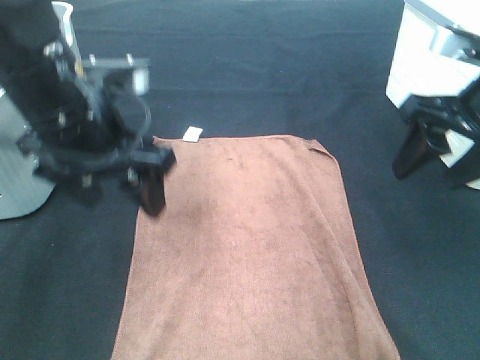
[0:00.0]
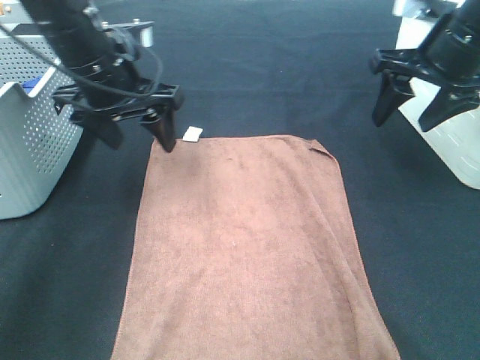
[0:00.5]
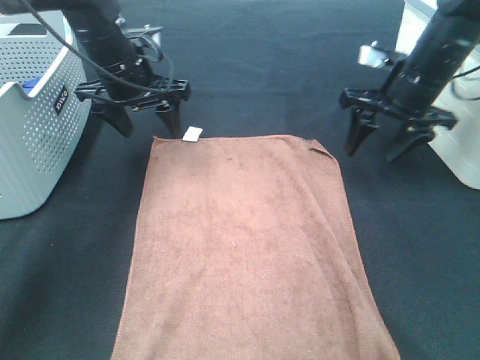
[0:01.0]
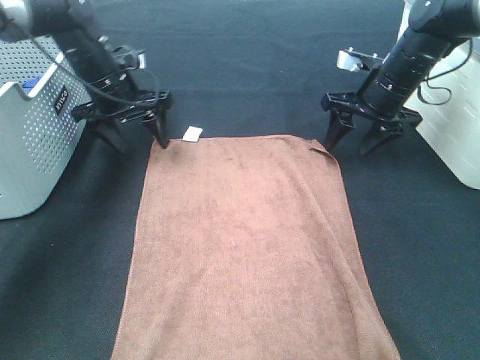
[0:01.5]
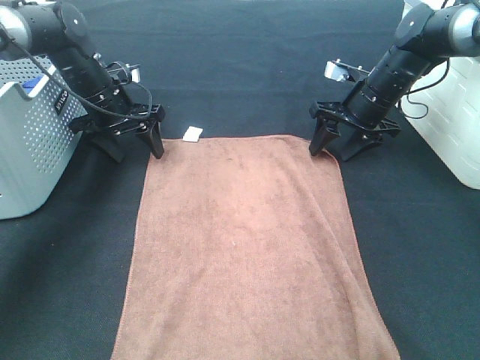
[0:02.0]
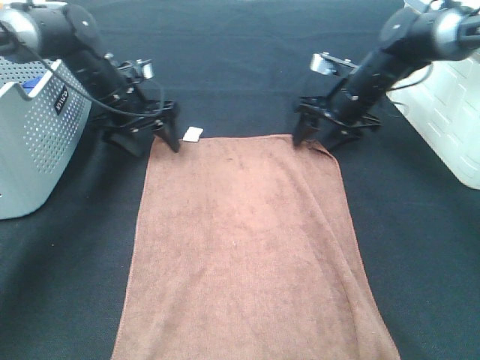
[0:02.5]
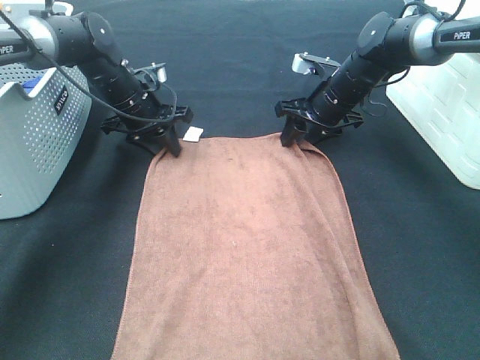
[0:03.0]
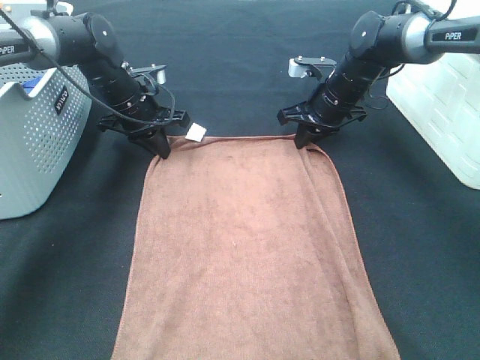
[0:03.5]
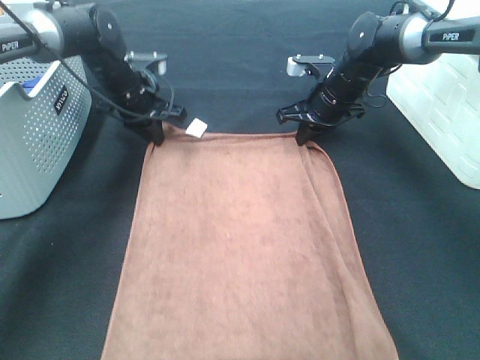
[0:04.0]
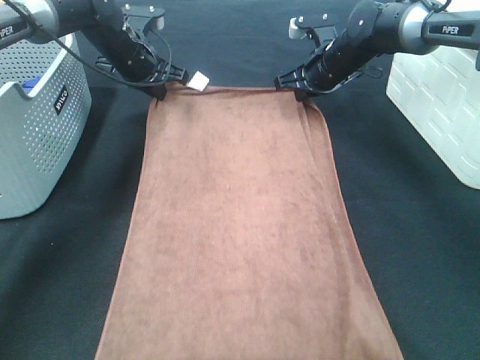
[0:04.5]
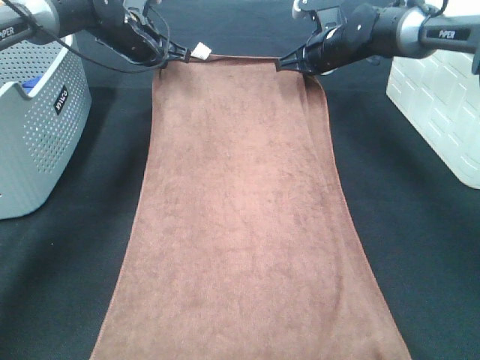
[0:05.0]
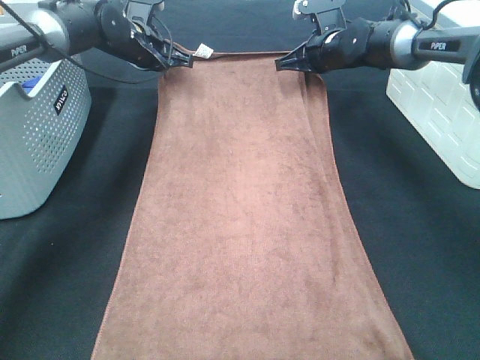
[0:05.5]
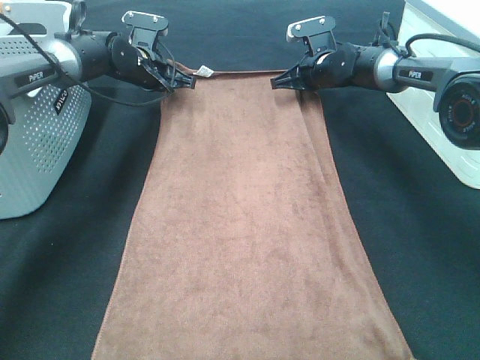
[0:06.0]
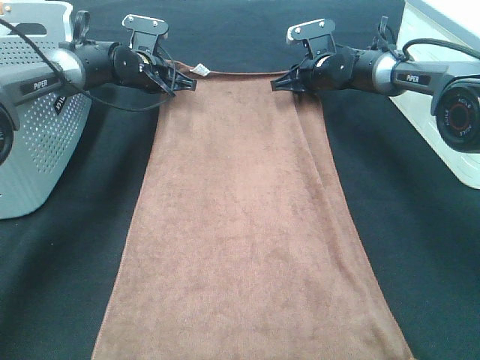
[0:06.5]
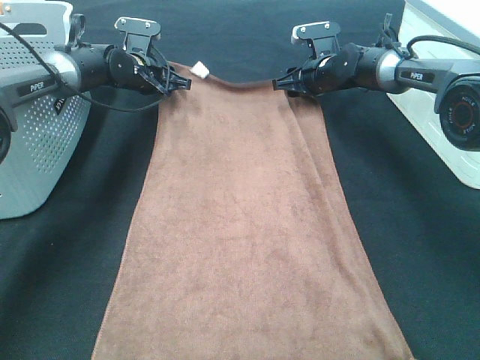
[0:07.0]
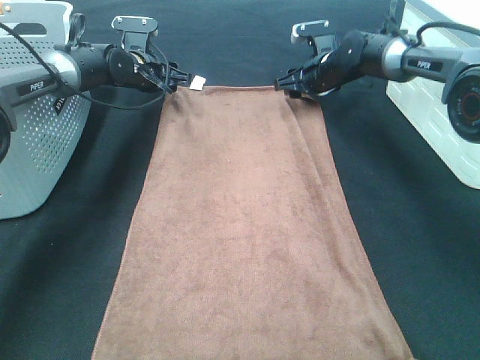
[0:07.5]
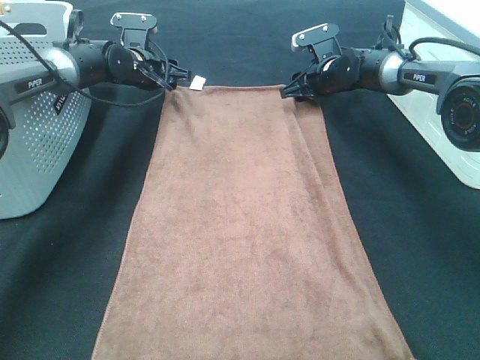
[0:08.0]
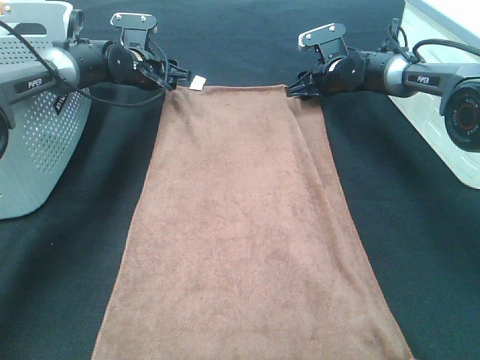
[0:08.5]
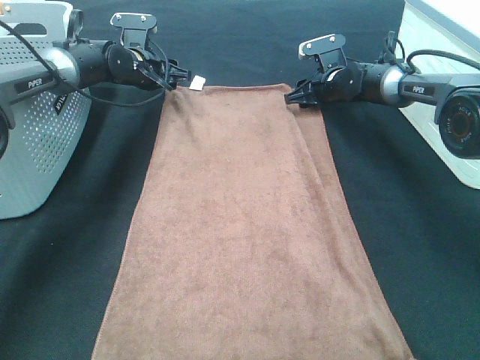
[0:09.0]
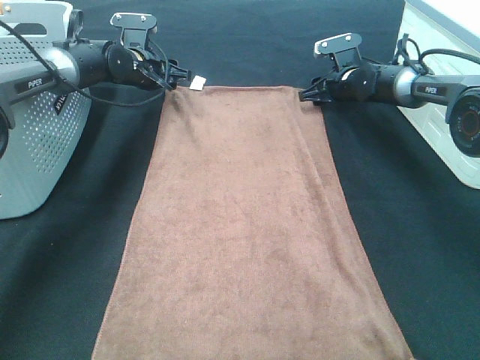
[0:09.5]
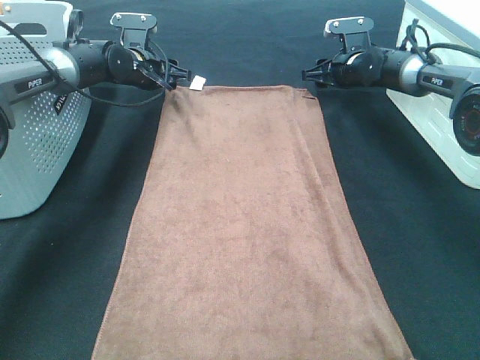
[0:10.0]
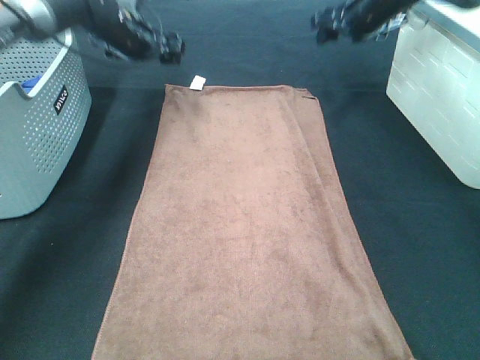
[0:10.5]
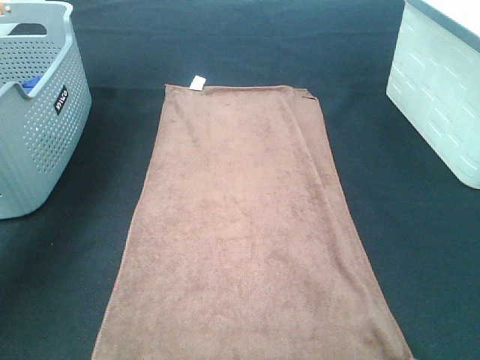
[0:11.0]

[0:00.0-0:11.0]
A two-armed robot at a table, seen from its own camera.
Task of the whole recording: Remove the towel and place it.
Step, 0:00.0 to 0:02.5: Right hand:adjust the brown towel.
0:00.0 to 0:02.0: The grippers both shift forward and downward by approximately 25 cm.
0:02.0 to 0:03.5: The left gripper closes up. The right gripper ends up some 5 cm from where it was, and closes up.
0:03.5 to 0:05.5: The left gripper goes about 10 cm forward and upward; the right gripper moves forward, about 5 cm.
0:05.5 to 0:07.5: The left gripper shifts approximately 5 cm downward, and opens its fingers; the right gripper opens its fingers.
0:07.5 to 0:09.0: There are only small adjustments of the grippers.
0:09.0 to 0:11.0: The left gripper travels upward and to the left by some 25 cm, while the right gripper is displaced upward by roughly 30 cm.

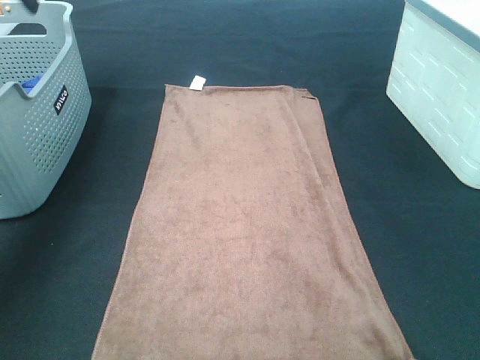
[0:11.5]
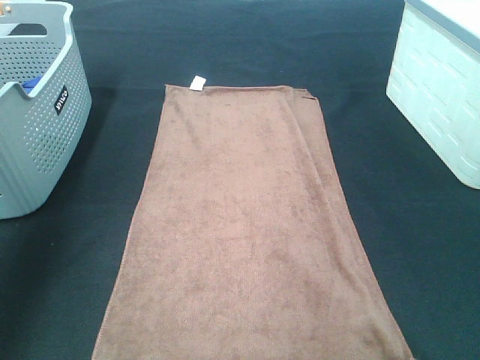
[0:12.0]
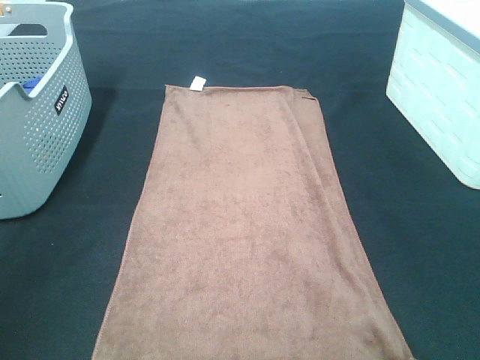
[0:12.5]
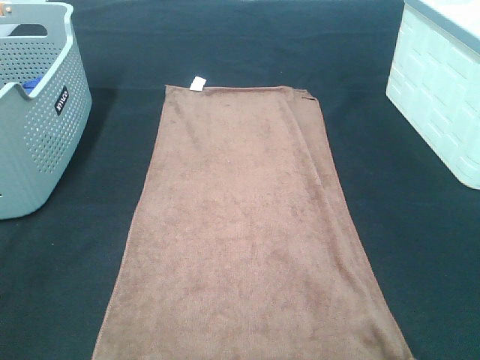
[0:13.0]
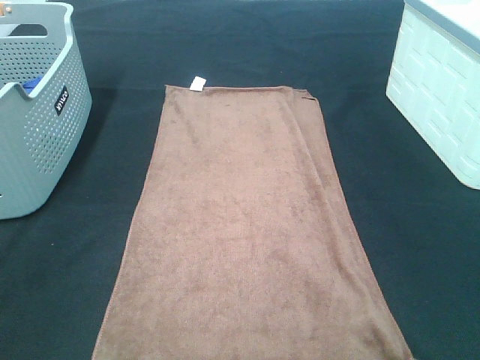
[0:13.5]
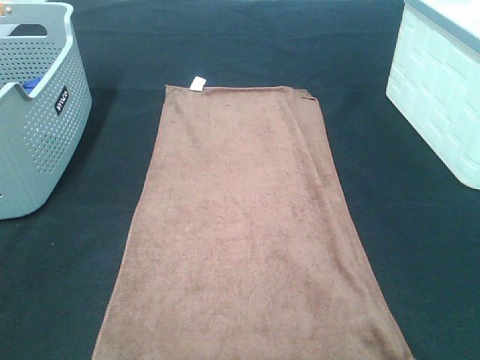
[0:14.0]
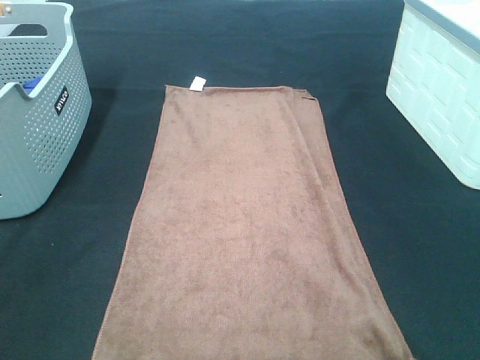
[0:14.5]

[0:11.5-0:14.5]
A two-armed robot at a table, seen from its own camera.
Task of the whole recording: Remove the towel and place it.
0:11.5 to 0:13.0: The two grippers go about 40 cm backward.

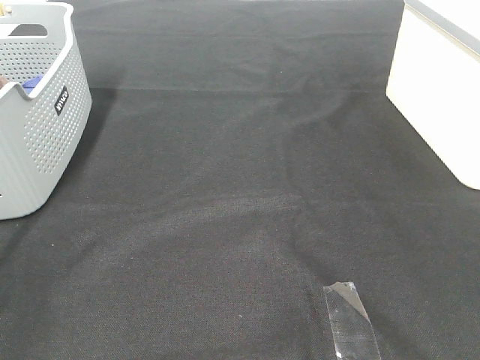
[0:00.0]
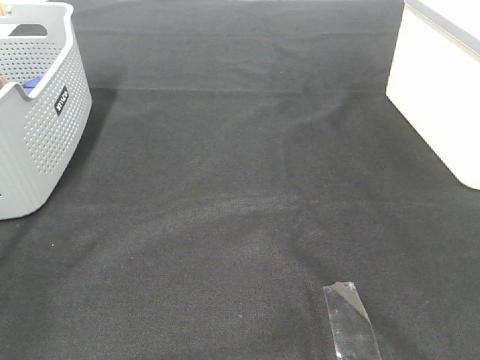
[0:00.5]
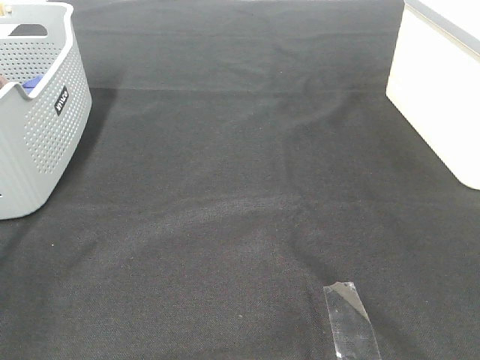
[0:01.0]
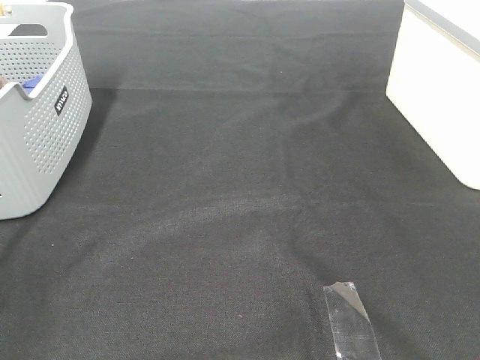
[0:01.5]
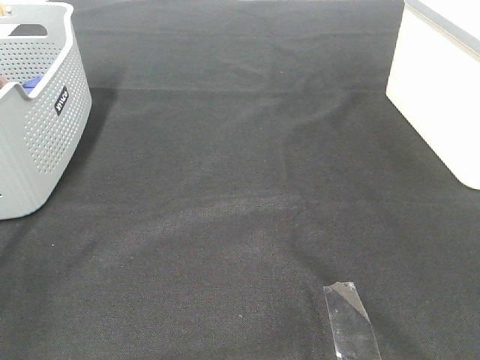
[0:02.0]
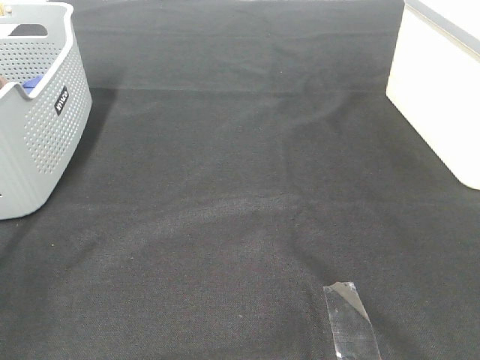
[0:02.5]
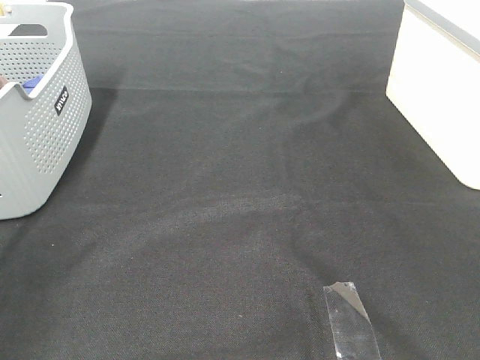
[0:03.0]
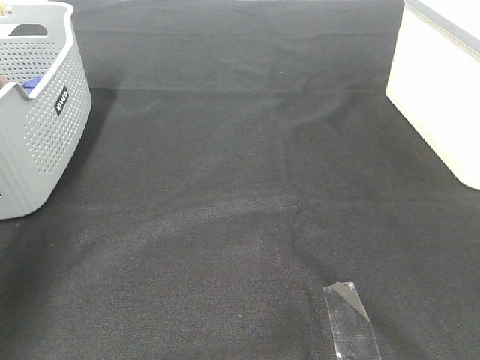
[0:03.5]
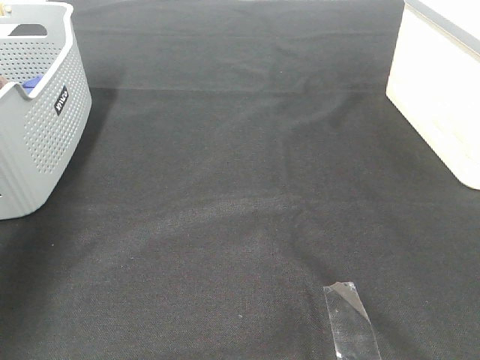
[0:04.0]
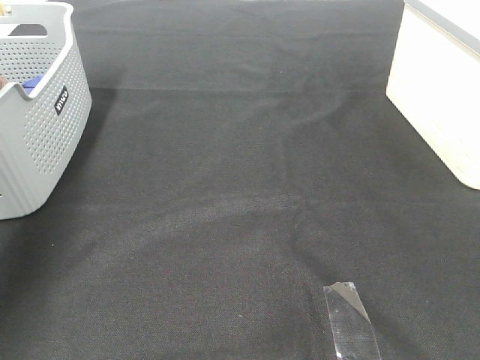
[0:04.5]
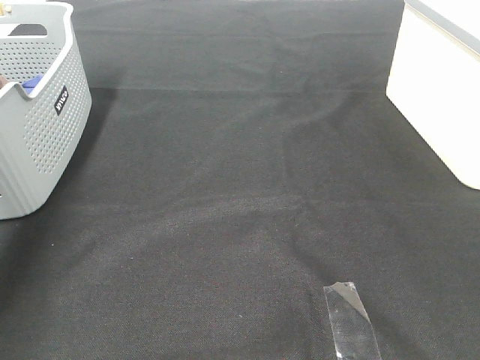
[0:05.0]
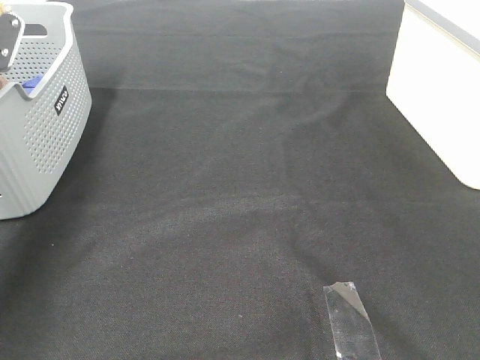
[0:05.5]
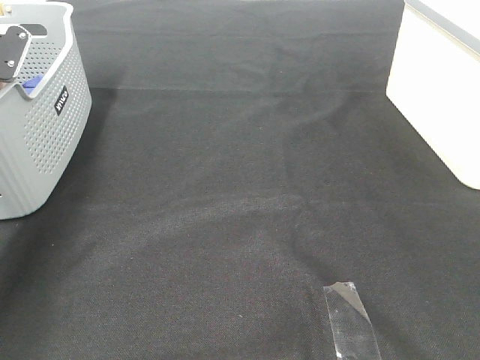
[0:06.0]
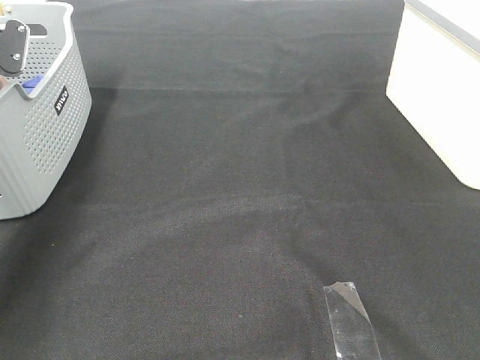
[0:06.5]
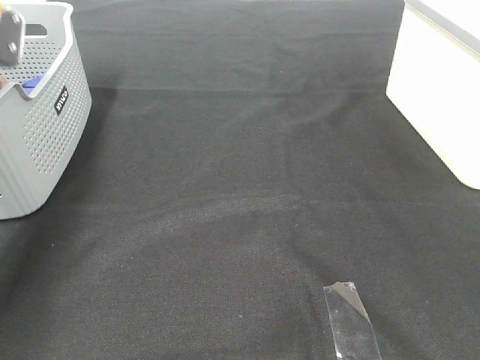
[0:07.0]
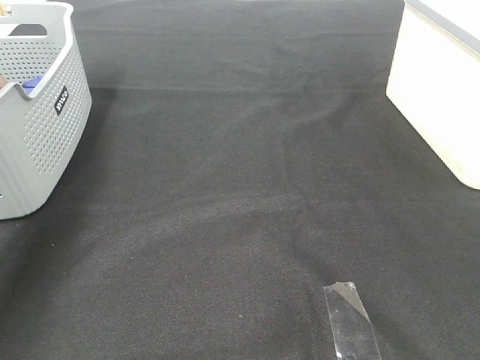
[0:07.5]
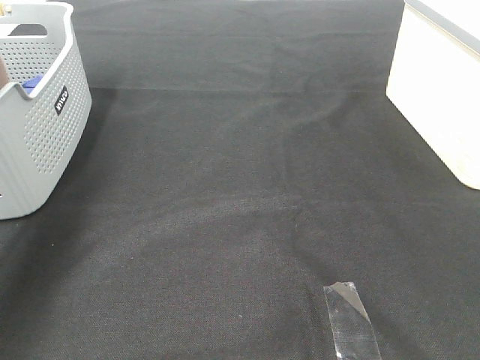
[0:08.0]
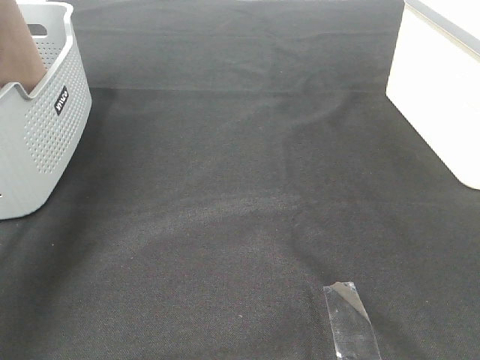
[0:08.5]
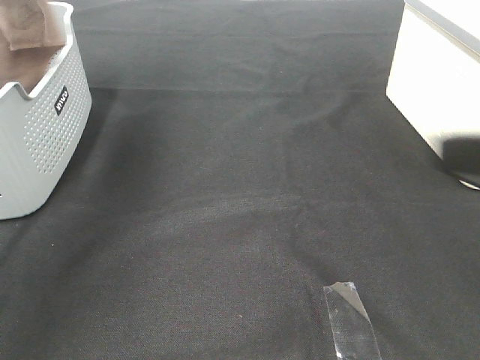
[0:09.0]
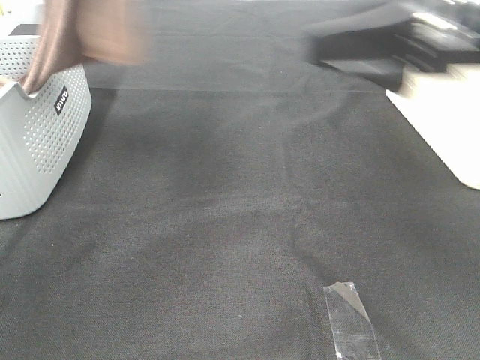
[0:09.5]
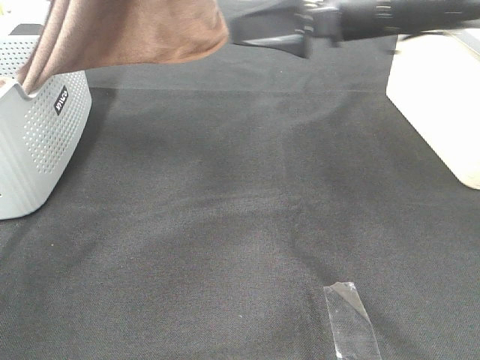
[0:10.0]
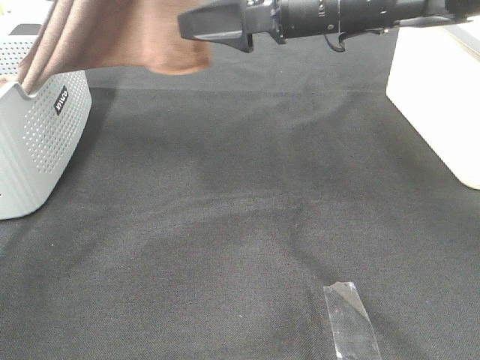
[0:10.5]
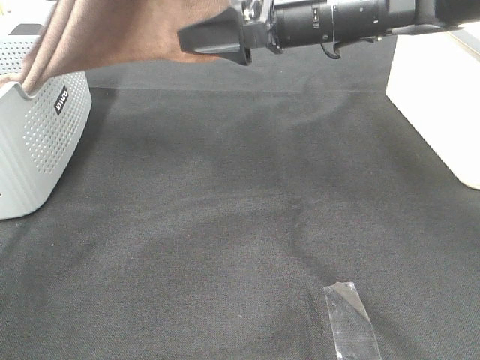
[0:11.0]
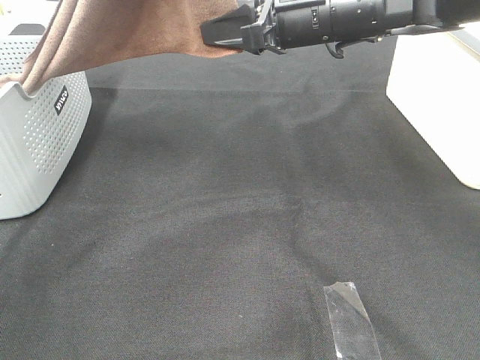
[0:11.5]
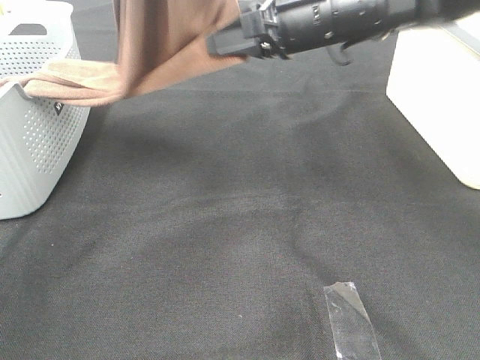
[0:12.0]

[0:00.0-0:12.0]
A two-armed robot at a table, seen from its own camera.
Task of the whole recording: Remove the towel and place it.
Step, 0:08.0 to 0:10.5: Right hand: grab a corner of the brown towel and straighten it.
0:00.0 to 0:02.0: Both grippers stay put.
0:02.0 to 0:04.0: The left gripper travels forward and upward by some 30 cm.
0:04.0 to 0:06.0: The left gripper moves downward and forward, roughly 25 cm.
0:06.0 to 0:08.0: The left gripper goes roughly 15 cm upward, and closes its fingers.
0:08.0 to 0:10.0: The left gripper shifts some 20 cm to the right and upward, while the right gripper shifts about 40 cm forward and to the left.
0:10.0 to 0:12.0: The right gripper closes its fingers.
